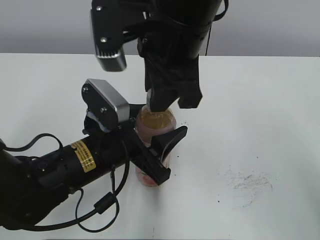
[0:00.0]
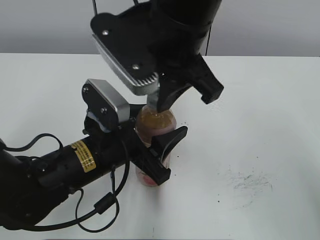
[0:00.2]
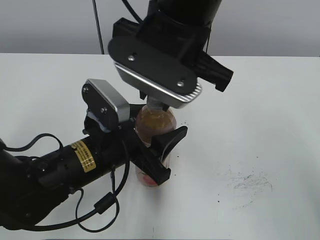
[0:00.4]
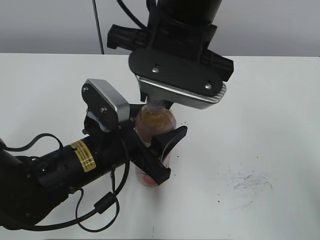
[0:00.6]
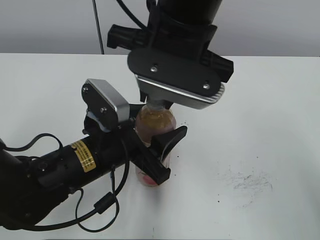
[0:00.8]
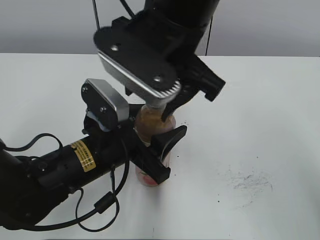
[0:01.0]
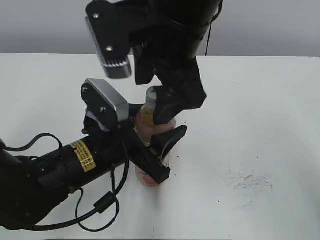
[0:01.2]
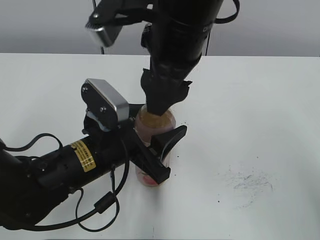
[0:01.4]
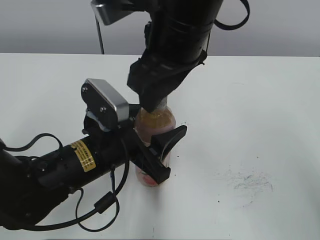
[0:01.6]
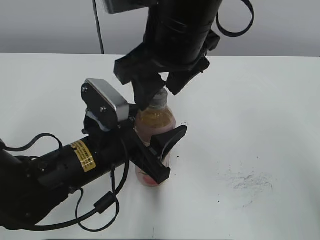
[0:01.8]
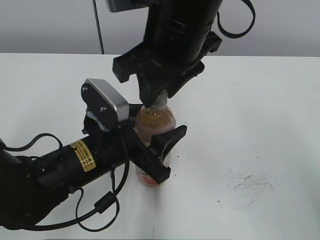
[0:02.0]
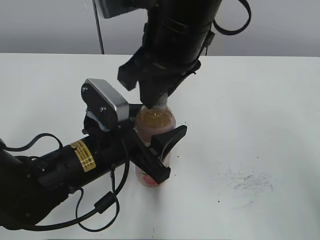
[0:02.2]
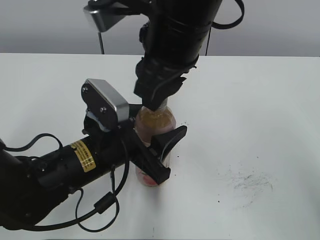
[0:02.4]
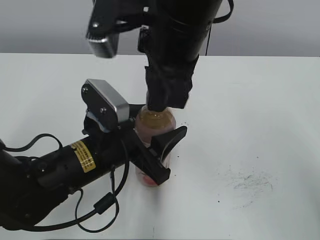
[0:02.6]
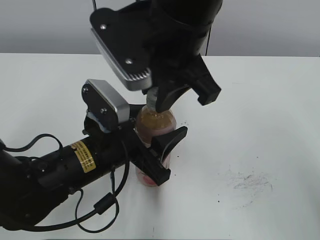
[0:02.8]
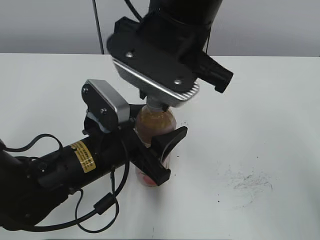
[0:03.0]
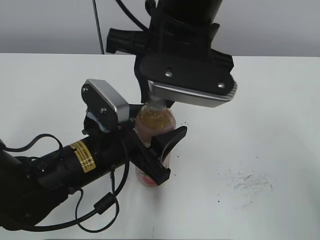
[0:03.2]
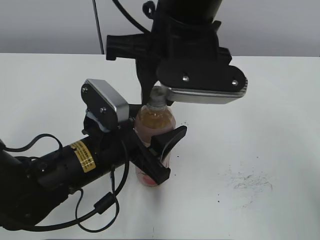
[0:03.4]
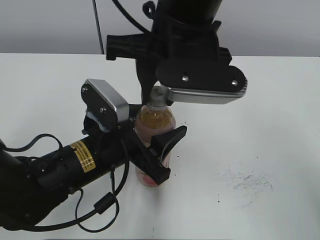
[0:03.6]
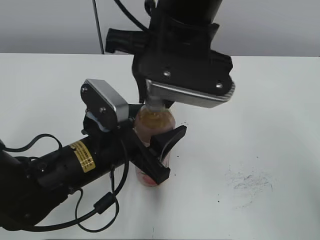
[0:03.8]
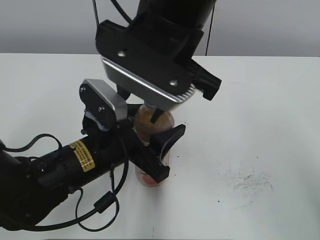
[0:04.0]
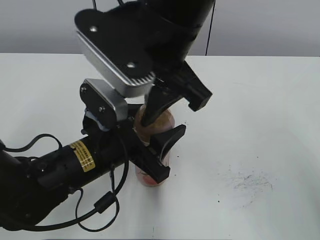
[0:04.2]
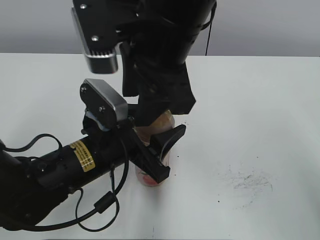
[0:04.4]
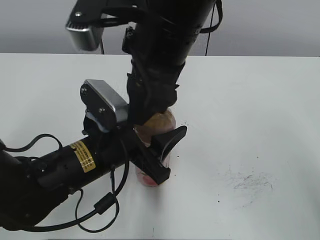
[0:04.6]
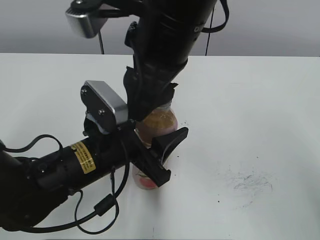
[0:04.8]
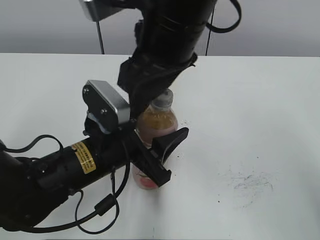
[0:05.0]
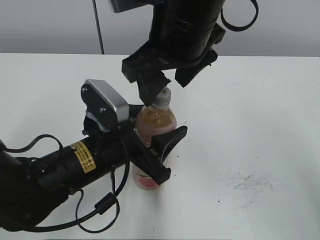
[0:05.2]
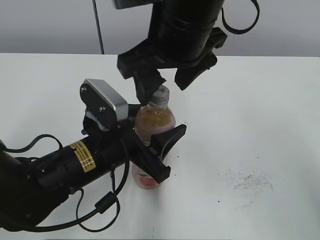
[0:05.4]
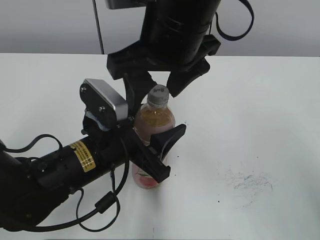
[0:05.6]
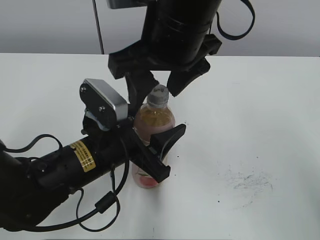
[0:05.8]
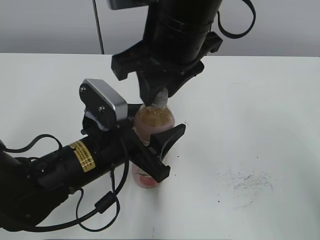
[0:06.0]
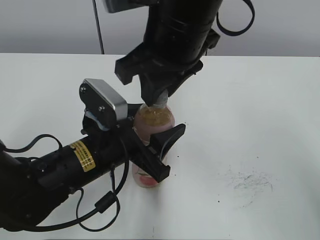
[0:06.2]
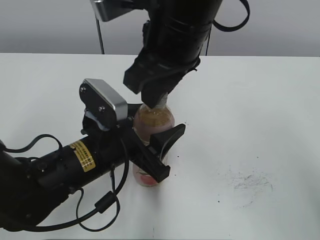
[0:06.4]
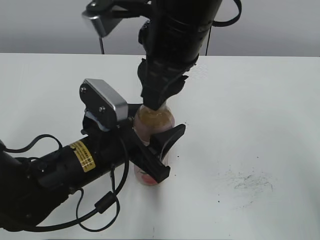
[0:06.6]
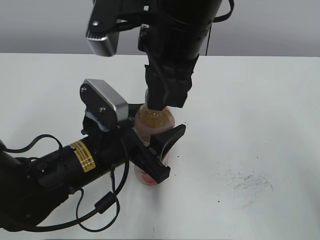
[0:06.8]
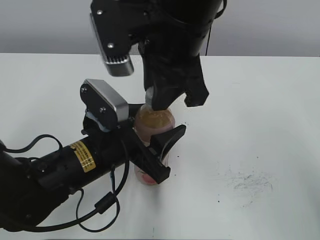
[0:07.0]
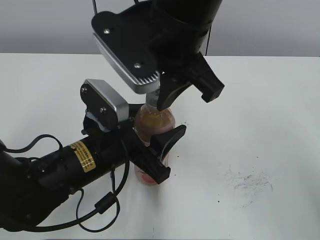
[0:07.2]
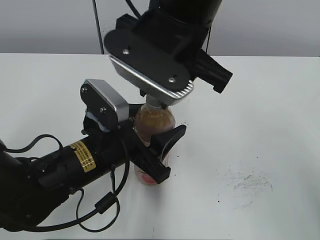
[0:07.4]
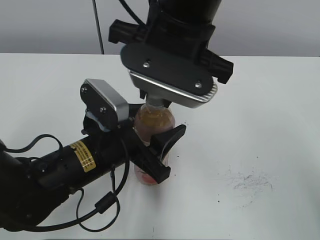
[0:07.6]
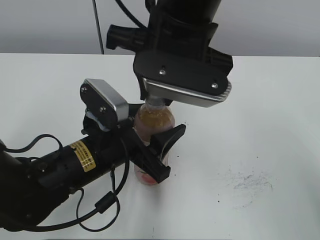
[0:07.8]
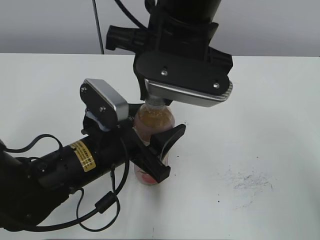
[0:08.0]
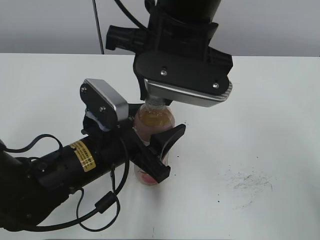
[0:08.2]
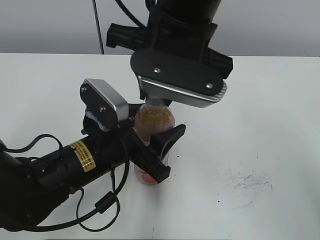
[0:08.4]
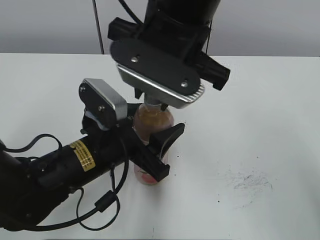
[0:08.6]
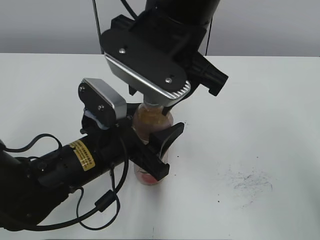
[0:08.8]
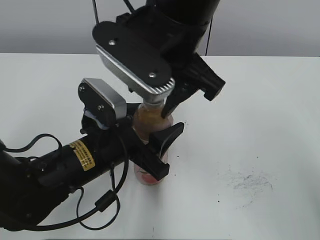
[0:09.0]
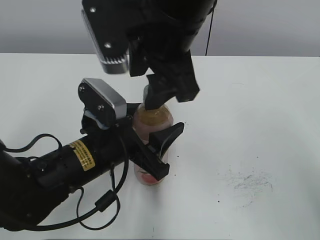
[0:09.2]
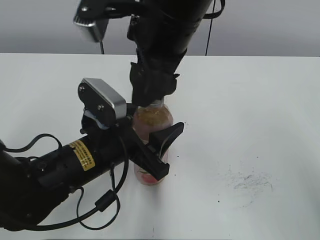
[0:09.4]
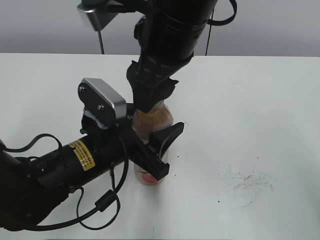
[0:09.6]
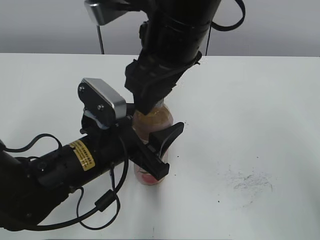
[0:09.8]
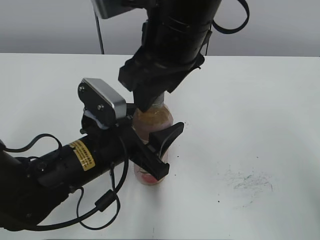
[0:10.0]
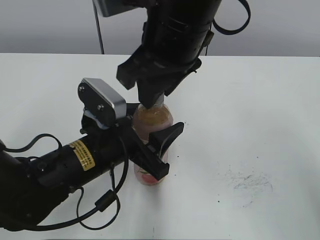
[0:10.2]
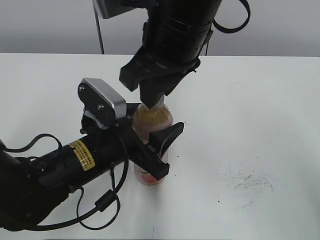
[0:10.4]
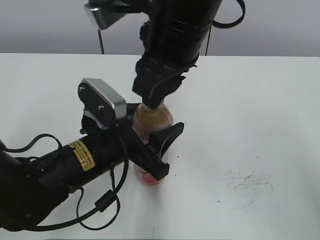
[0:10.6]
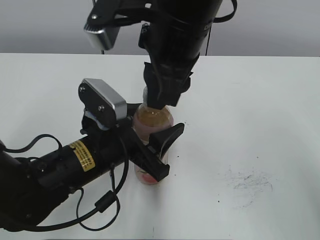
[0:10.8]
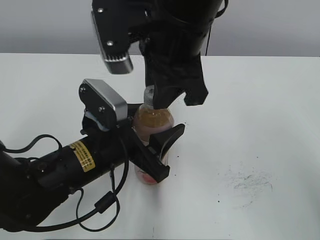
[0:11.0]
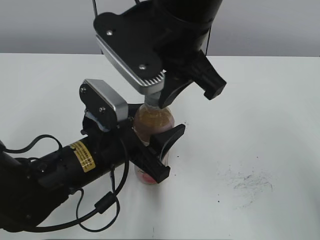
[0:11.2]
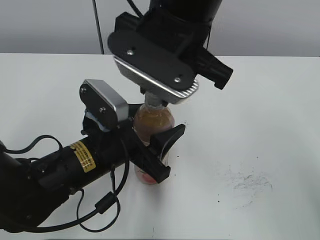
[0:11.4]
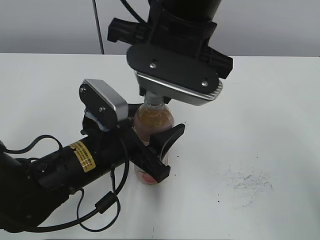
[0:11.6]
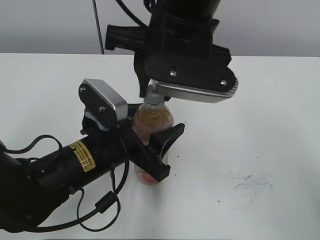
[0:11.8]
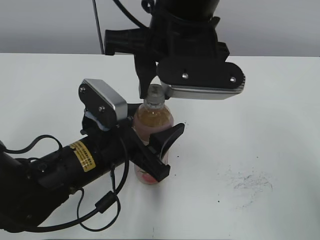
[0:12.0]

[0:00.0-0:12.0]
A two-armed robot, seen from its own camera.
0:00.0 to 0:01.6: The right gripper opens up.
0:01.6 to 0:03.0: The right gripper closes.
0:03.0 to 0:04.4: The right gripper opens its fingers.
0:04.4 to 0:06.0: The right gripper opens and closes again.
0:07.6 to 0:09.0: The right gripper opens its fingers.
0:09.0 to 0:10.4: The right gripper closes.

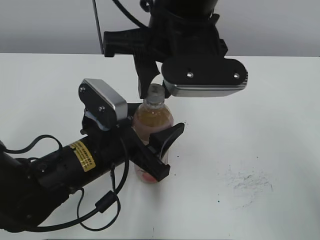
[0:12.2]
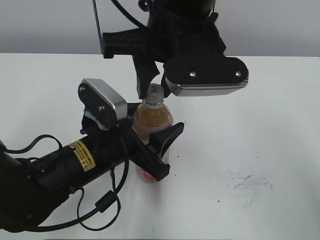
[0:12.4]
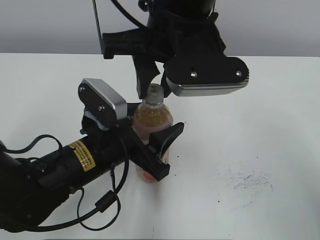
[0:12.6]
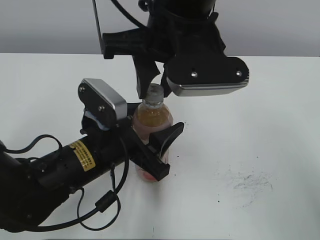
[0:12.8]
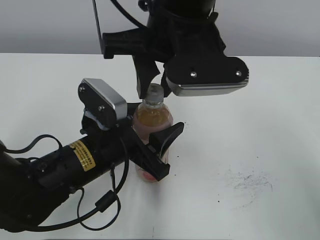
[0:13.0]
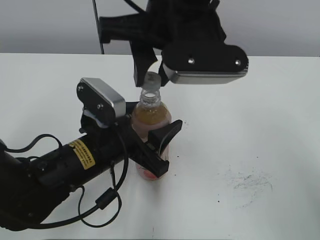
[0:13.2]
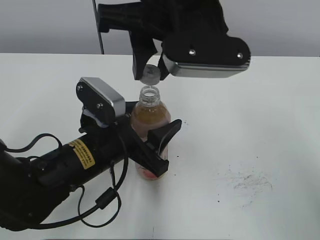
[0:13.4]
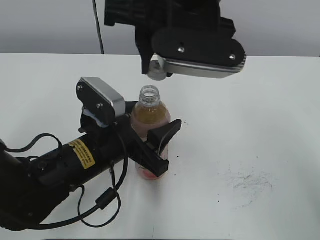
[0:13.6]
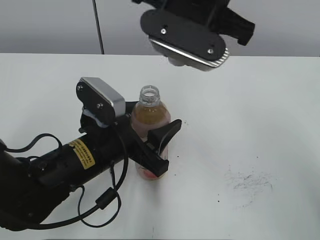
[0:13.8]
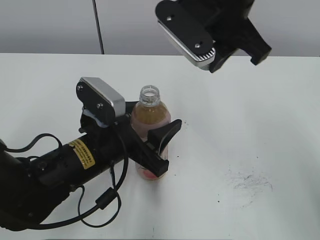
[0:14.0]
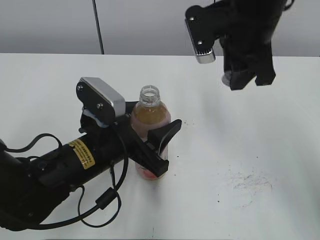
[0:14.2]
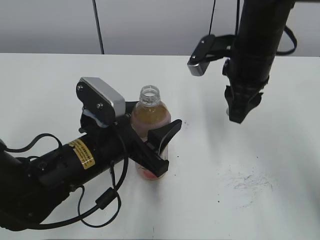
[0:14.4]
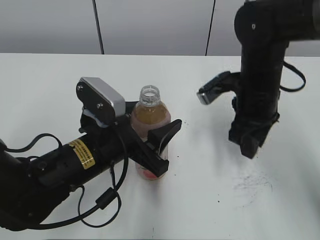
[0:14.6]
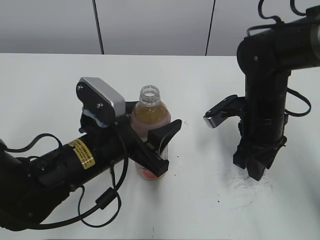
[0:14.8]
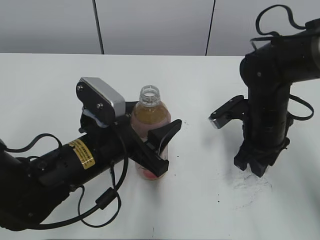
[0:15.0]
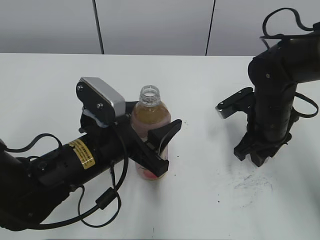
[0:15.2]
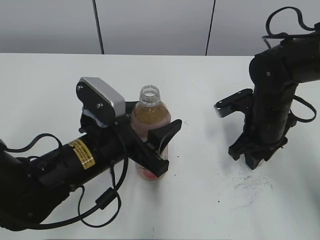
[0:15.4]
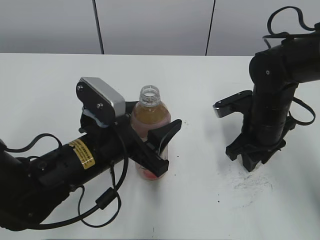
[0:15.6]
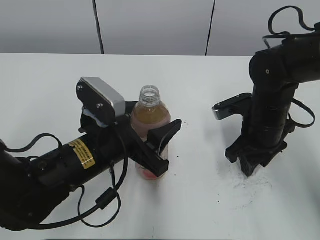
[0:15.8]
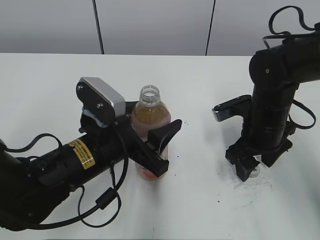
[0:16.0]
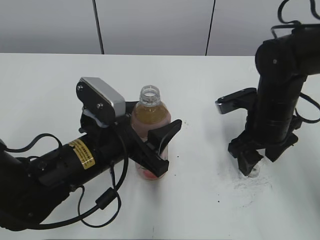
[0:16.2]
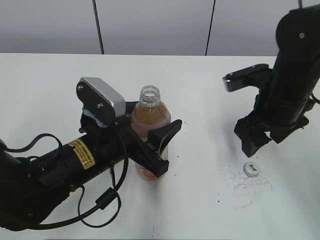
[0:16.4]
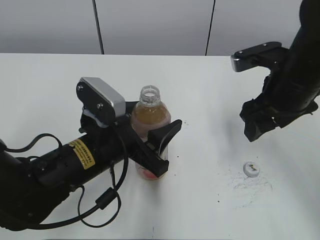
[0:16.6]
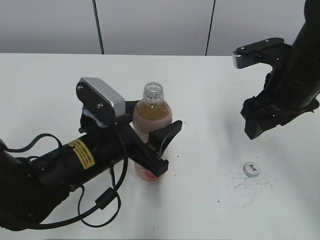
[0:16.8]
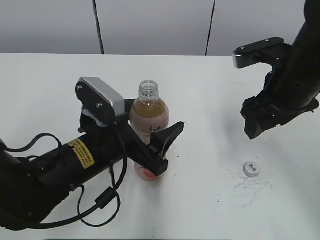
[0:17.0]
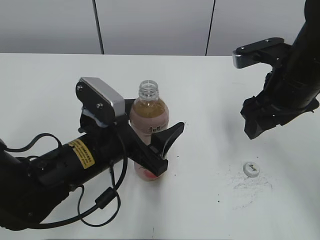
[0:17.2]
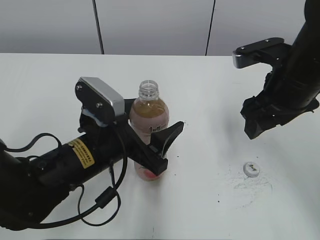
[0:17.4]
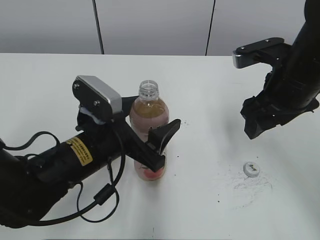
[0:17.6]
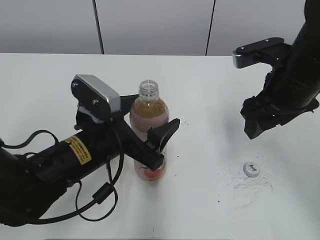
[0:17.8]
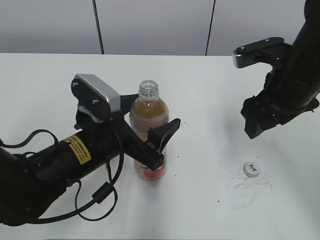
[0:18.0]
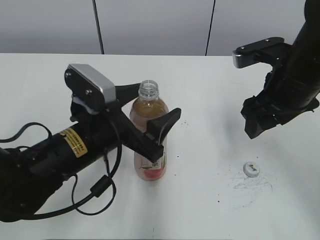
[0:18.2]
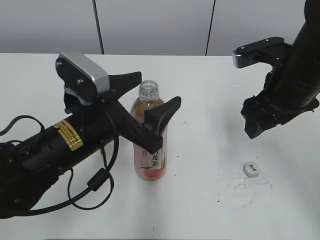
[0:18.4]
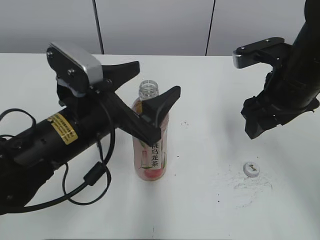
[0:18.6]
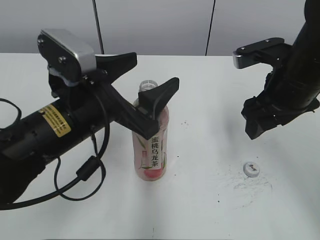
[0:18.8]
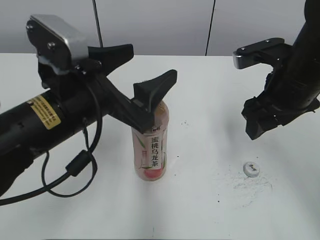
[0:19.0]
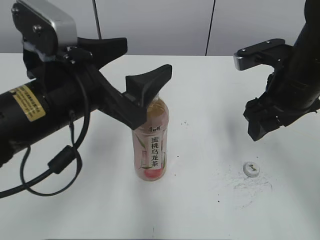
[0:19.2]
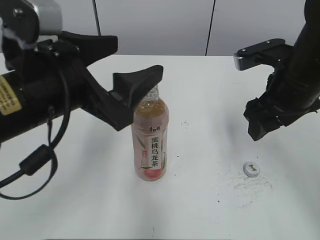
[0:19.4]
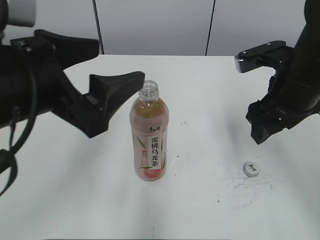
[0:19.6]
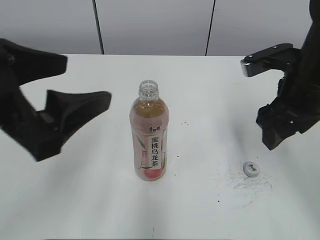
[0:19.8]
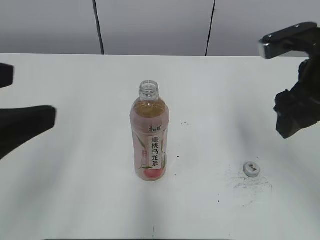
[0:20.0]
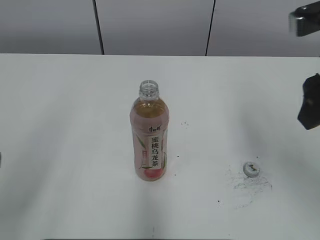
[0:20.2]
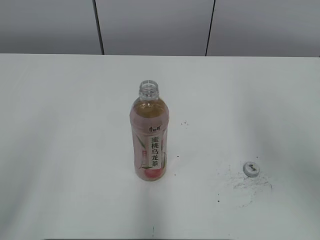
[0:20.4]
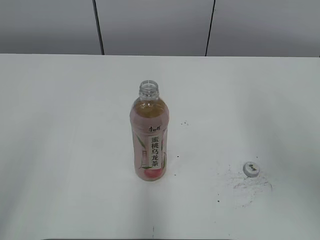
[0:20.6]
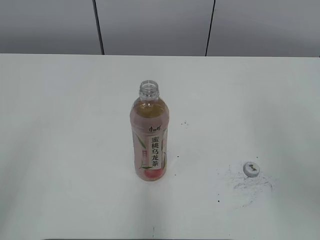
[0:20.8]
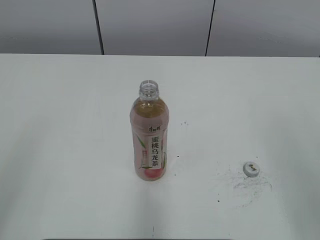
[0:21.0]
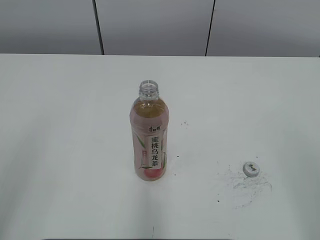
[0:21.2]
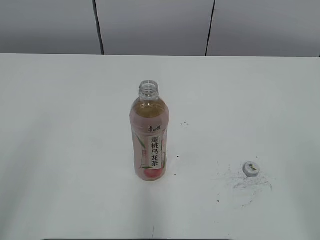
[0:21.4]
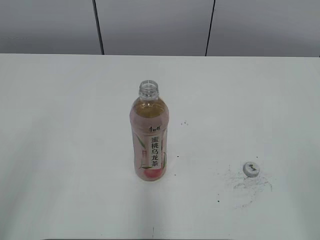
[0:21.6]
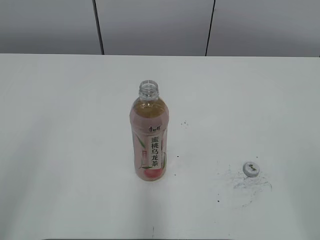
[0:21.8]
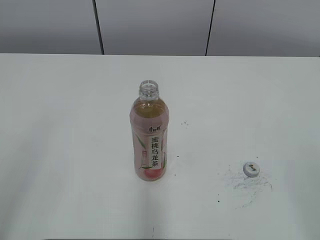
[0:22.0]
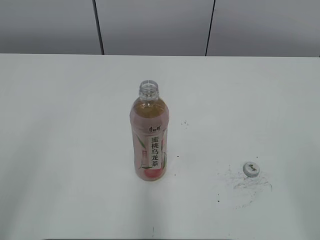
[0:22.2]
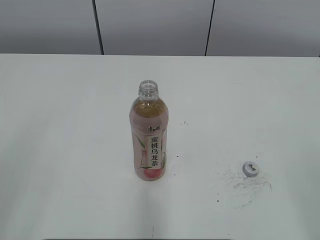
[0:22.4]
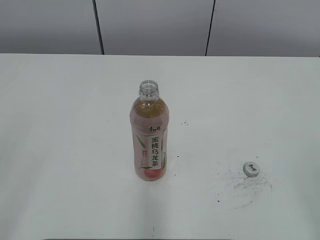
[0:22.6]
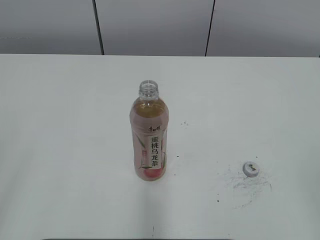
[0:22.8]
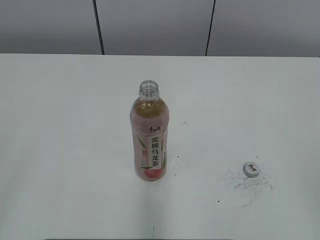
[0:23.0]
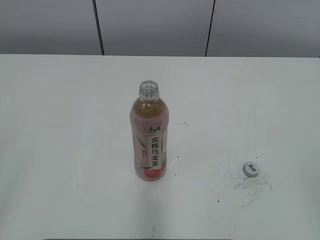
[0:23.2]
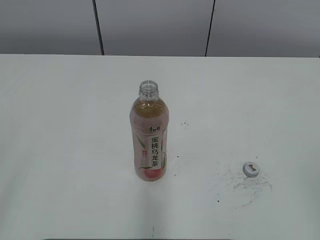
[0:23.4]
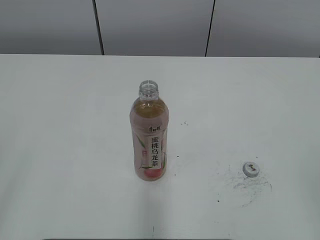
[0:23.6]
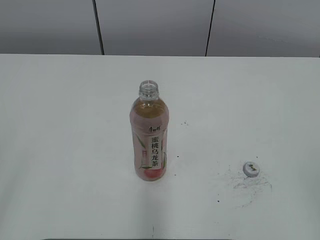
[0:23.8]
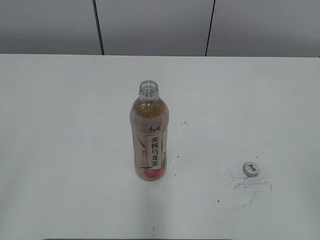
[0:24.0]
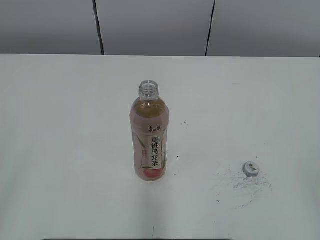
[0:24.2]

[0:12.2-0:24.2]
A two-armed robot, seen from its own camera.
Step, 0:13.2 to 0:16.0: Place the bottle cap on the right.
0:13.8 to 0:15.2: The right gripper heads downward and to the right, covering some 25 cm.
0:15.2 to 0:16.6: The right gripper moves upward, approximately 10 cm, and opens up.
0:16.6 to 0:18.2: The left gripper opens its fingers.
0:18.2 to 0:19.8: The left gripper goes roughly 15 cm upward, to the left and backward.
0:19.8 to 0:21.2: The left gripper heads backward and to the left, covering approximately 15 cm, while the right gripper travels backward by roughly 25 cm.
